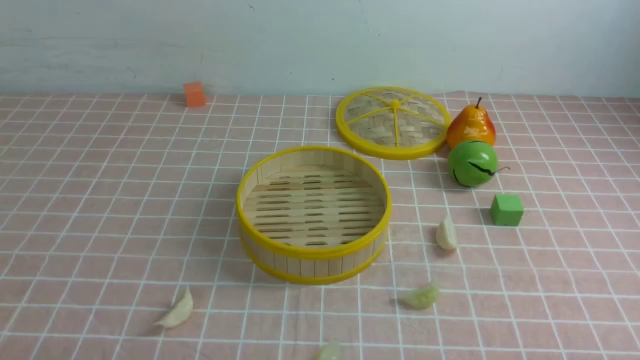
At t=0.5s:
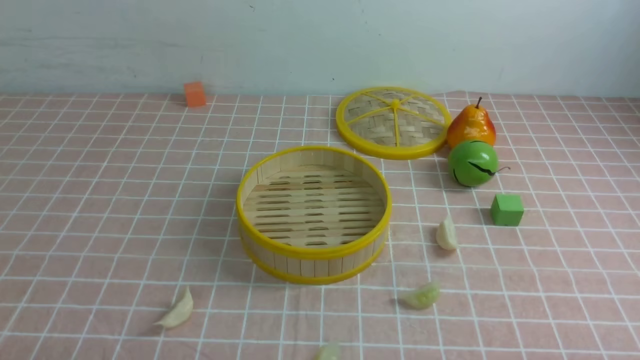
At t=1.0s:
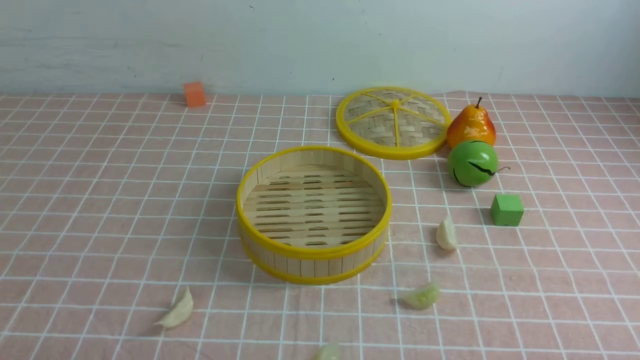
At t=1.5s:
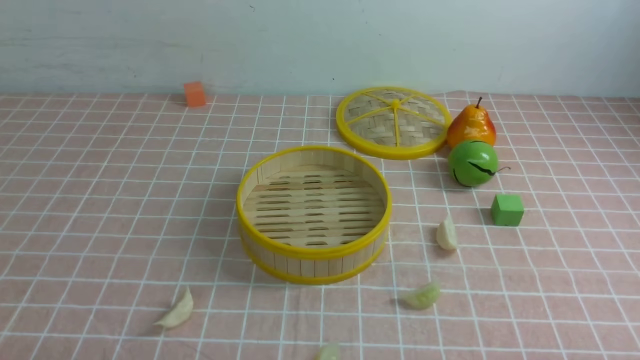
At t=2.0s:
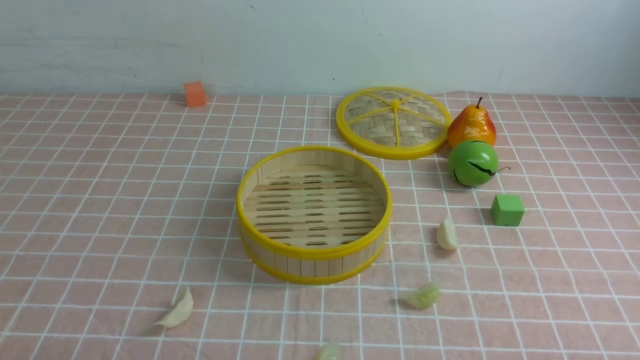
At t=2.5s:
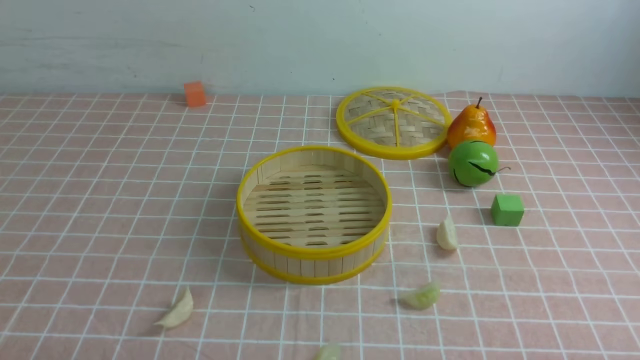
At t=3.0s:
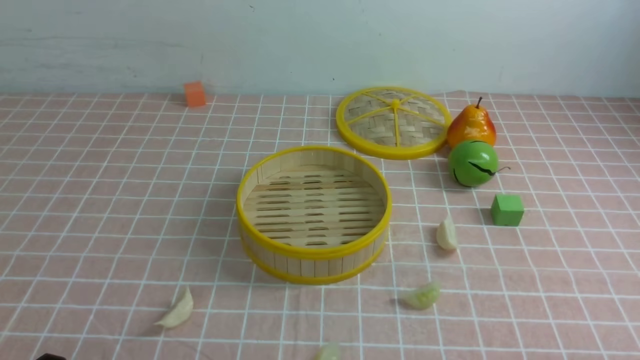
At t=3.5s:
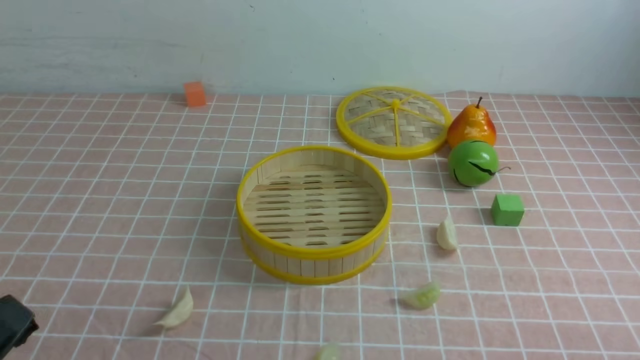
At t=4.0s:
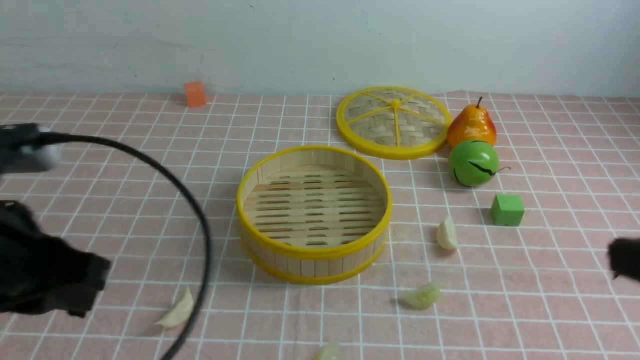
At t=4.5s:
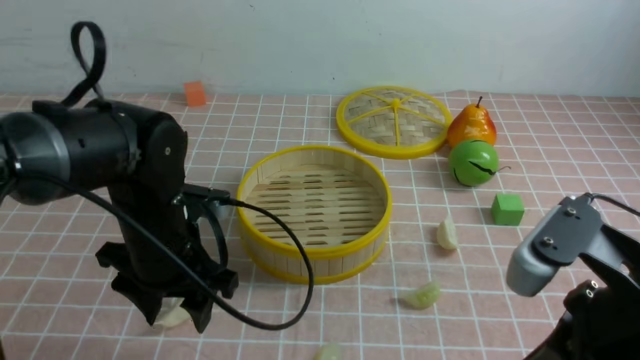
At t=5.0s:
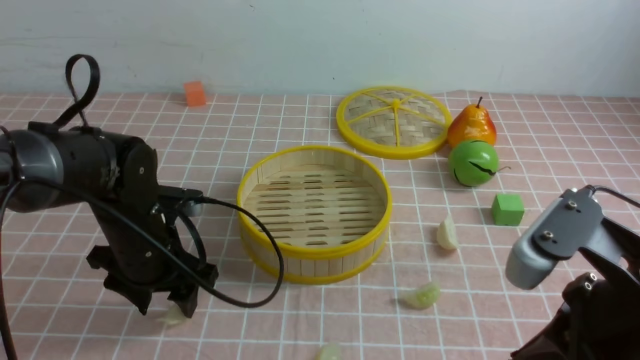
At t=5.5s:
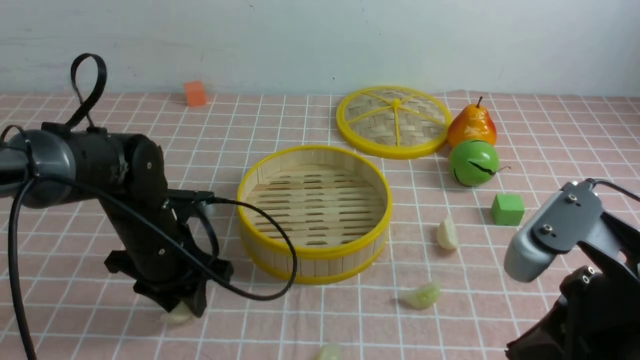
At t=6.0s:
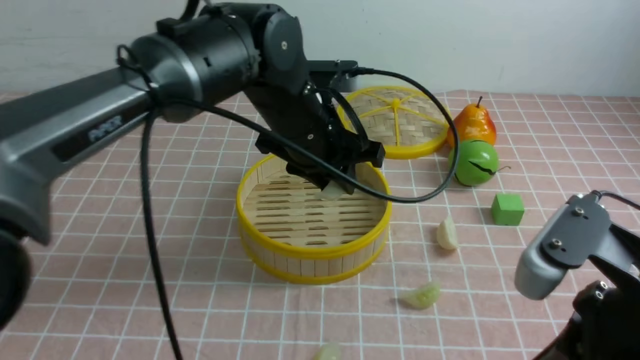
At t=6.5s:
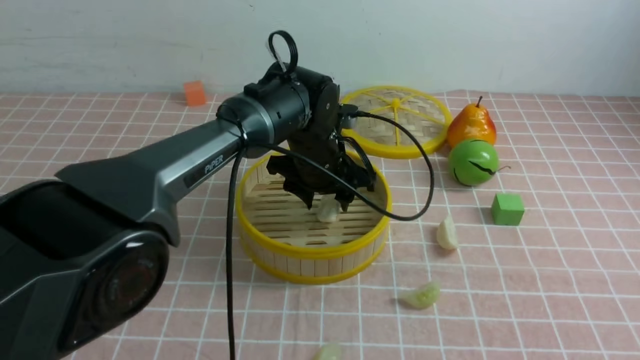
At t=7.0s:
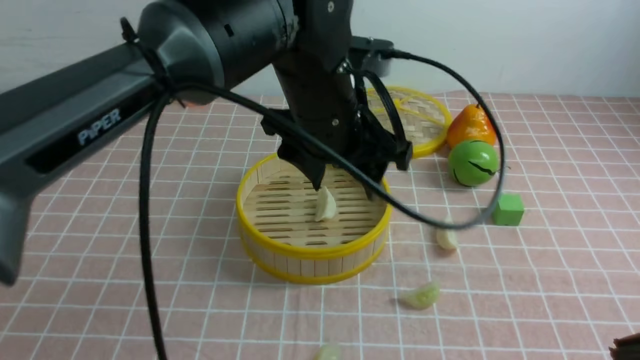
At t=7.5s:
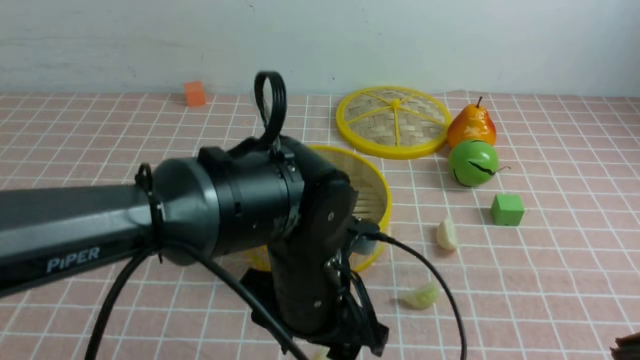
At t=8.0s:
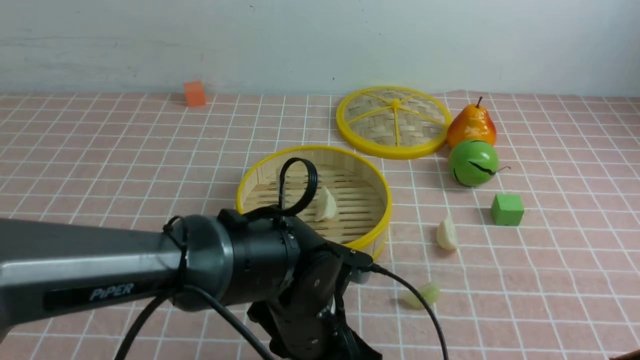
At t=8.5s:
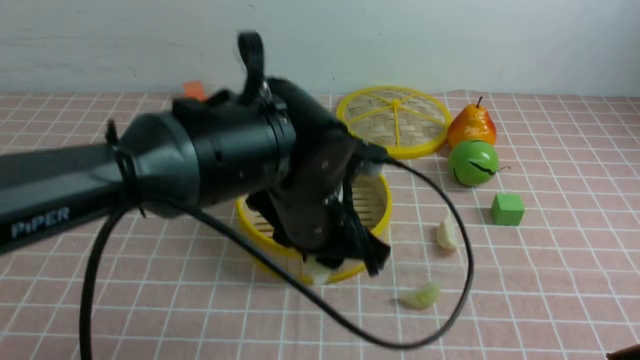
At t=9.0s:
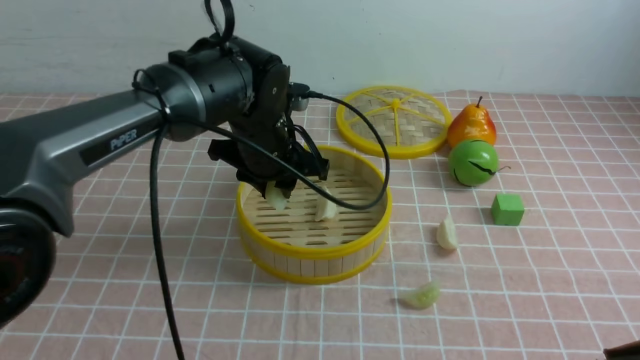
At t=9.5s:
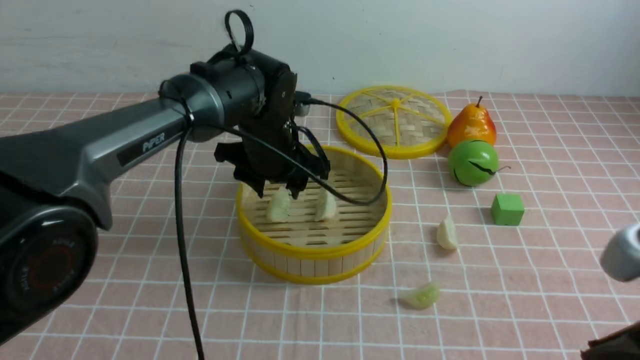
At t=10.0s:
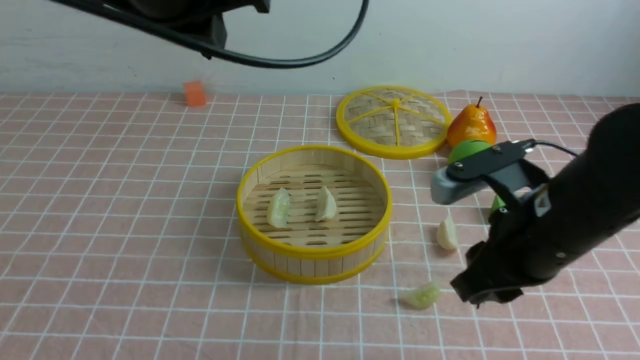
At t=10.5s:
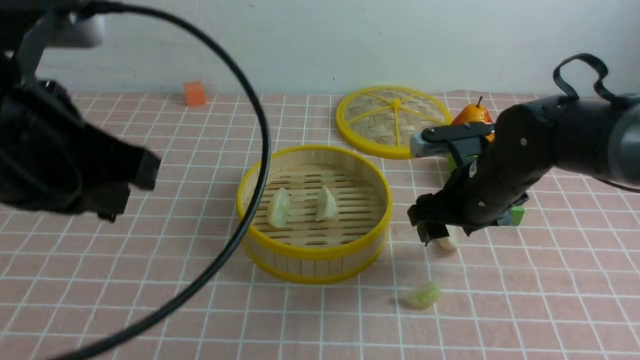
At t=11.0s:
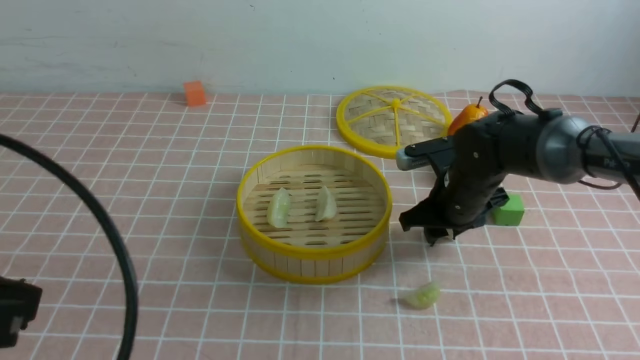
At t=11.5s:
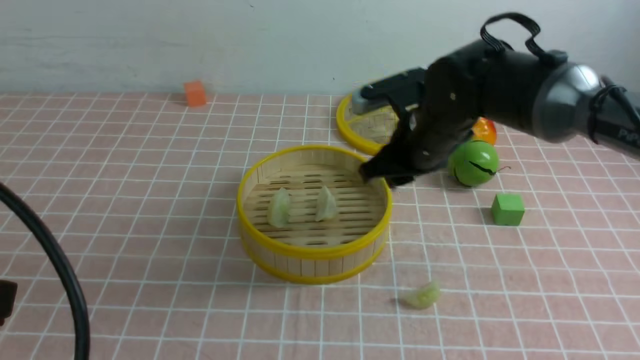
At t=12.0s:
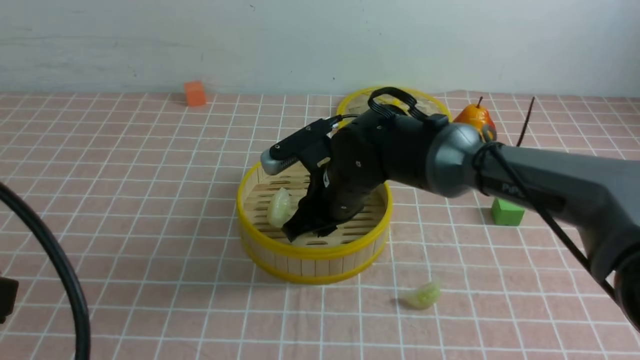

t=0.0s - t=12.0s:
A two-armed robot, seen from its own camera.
Task of the whole recording: put the dumplings into the steamer on the table with the pink tablecloth.
Step, t=0.0s - t=5.5s: use the left arm to grab a dumpling.
Step, t=6.0s - t=6.5s: use the left arm to put the dumpling into the steamer.
Step, t=7.0s - t=8.0s: use the left arm to grab a dumpling.
Step, t=8.5s - t=9.0s: use the left arm to put the dumpling into the steamer.
Step, t=9.5s - t=11.0s: use the right arm to grab a dumpling.
t=2.0s - t=4.0s: The two grippers go roughly 20 cm upward and forward. The right gripper closes, while the left gripper closes.
t=4.0s - t=6.0s: The right gripper moves to the left, approximately 5 cm. The left gripper shifts approximately 30 cm forward and to the right, and opens up.
t=6.0s - t=8.0s: The left gripper is displaced backward and downward by about 15 cm. Meanwhile the right gripper shifts roughly 5 cm backward.
t=8.0s - t=10.0s: The left gripper shifts about 25 cm upward, and closes; the right gripper shifts about 15 cm forward and to the left.
t=10.0s - t=12.0s: The left gripper shifts approximately 30 cm backward and to the left; the right gripper is displaced to the left, forward and downward by some 25 cm, and opens, then closes again.

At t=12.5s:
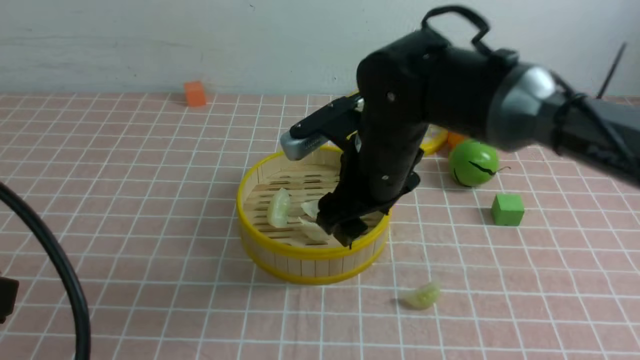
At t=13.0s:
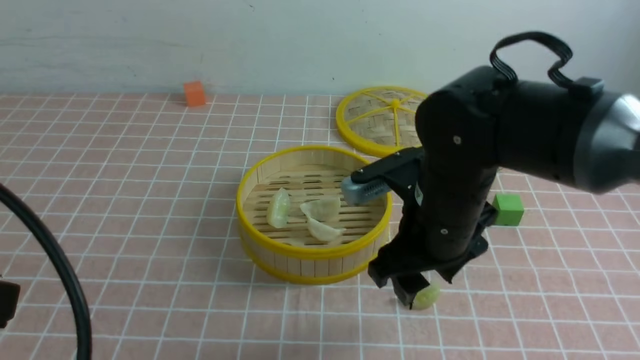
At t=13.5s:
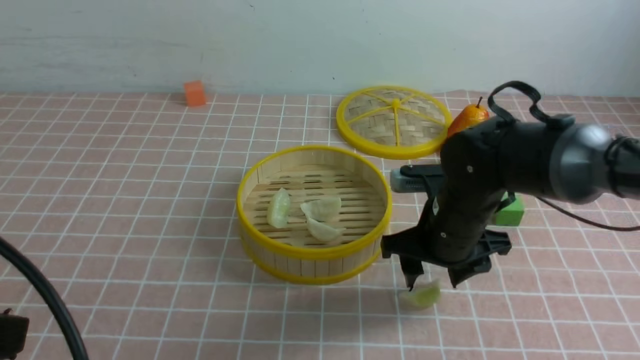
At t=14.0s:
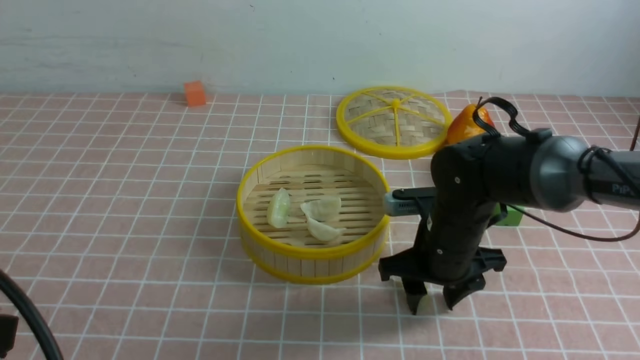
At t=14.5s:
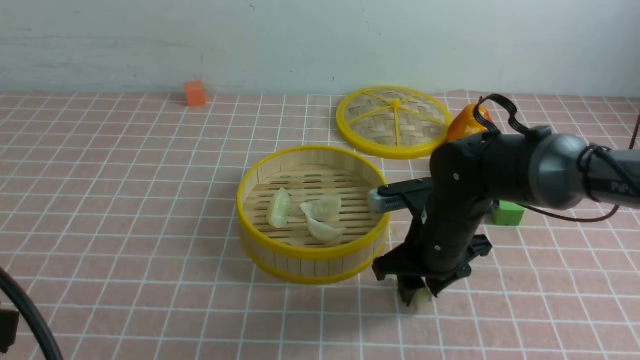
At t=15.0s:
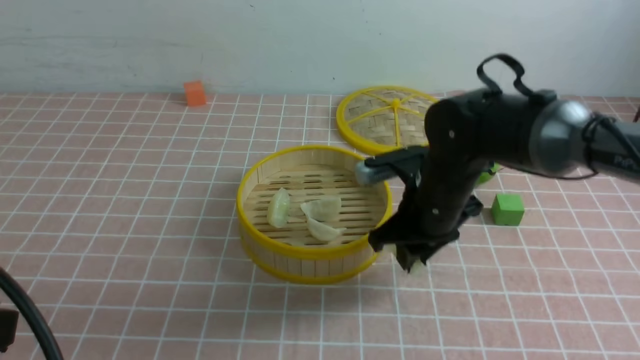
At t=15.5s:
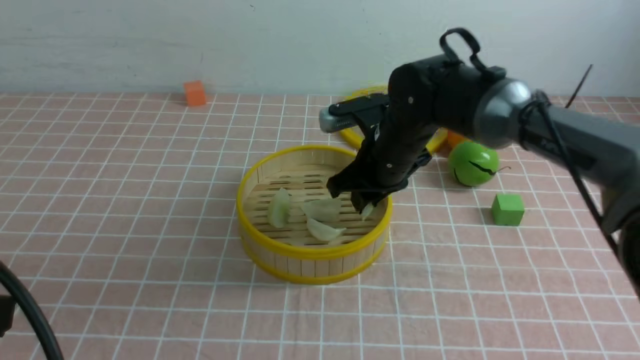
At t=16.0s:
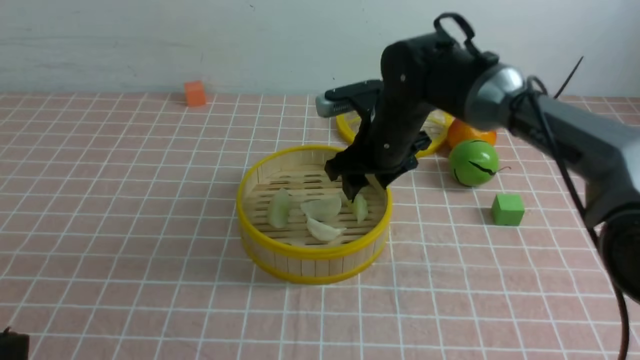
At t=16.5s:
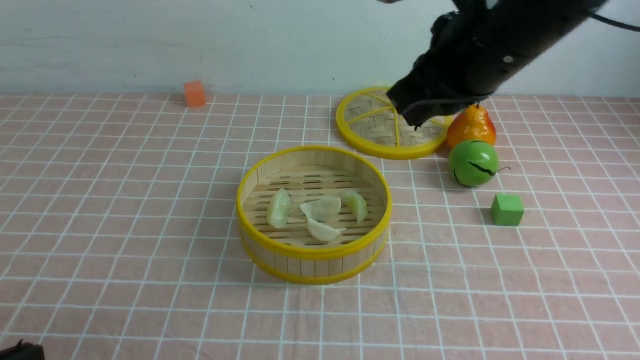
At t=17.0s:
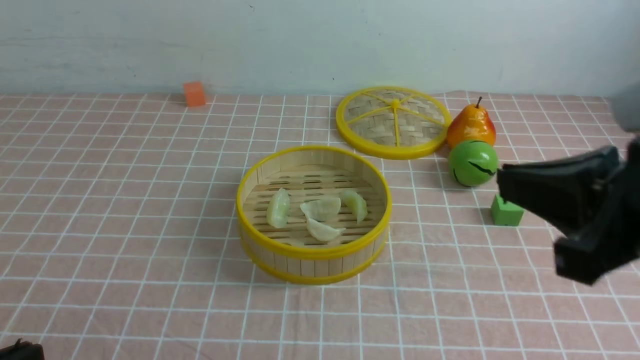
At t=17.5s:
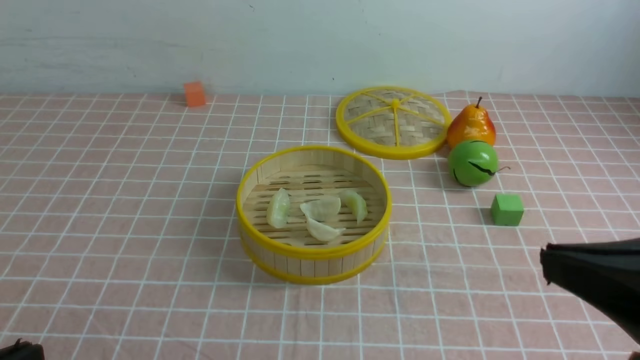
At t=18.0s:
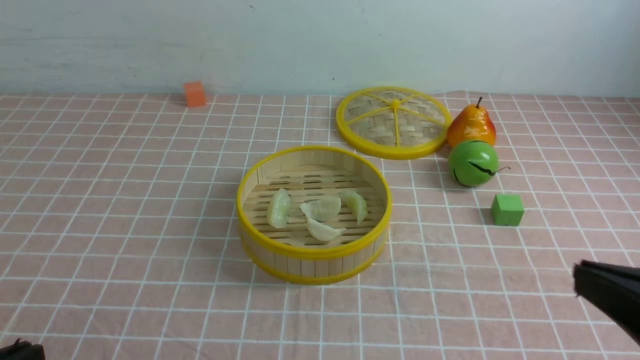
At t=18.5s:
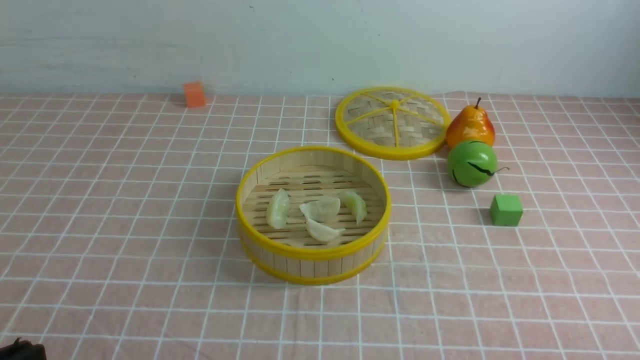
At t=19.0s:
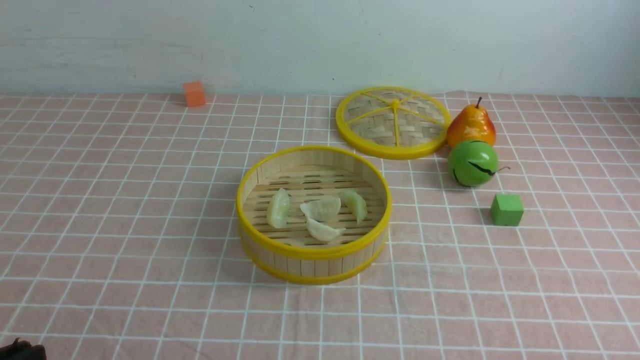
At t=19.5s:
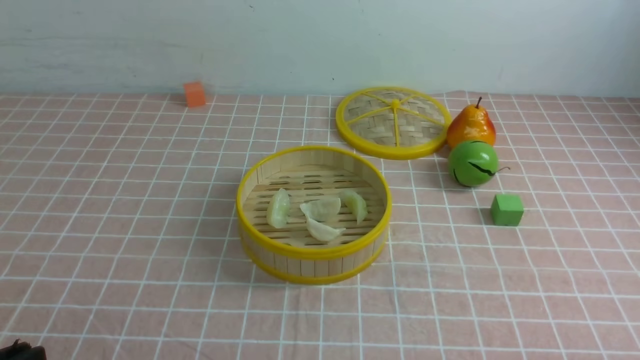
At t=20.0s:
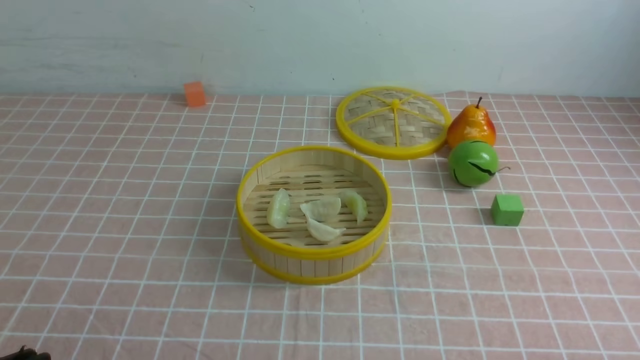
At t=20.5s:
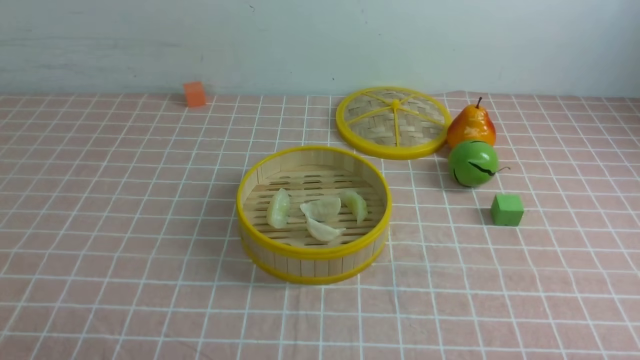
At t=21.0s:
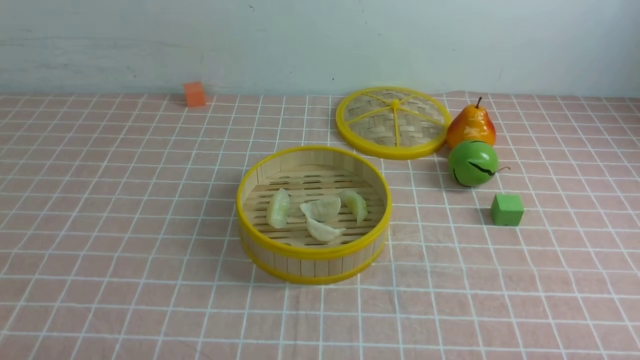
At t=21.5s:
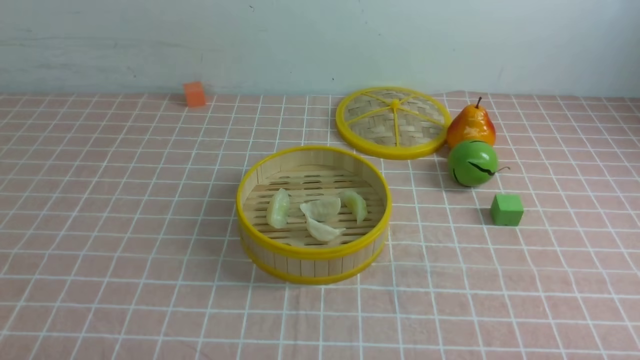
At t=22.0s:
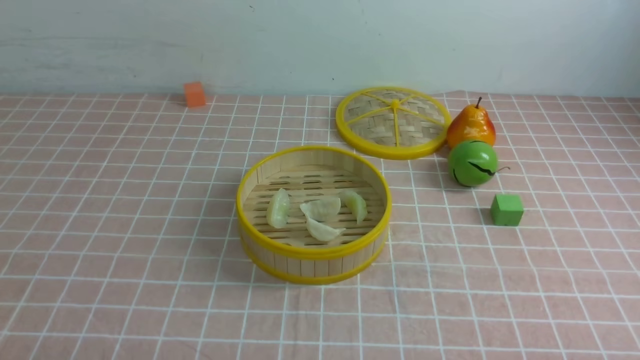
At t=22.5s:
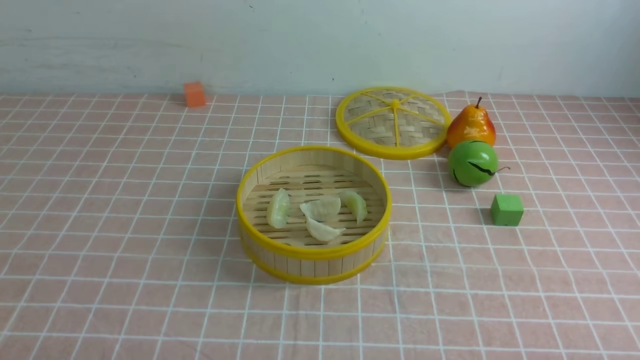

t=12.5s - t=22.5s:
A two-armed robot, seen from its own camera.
Task of the whole recording: put the dumplings into the steamer on the table with the pink tablecloth.
Step, t=12.5s - t=14.5s: use the right arm to grab a dumpling.
Step, t=15.0s - t=16.0s: use the right arm to put the dumpling into the steamer.
t=12.5s - t=14.5s: The right gripper moves downward and to the right, roughly 10 cm.
t=14.5s - t=16.5s: The left gripper moves downward, some 10 cm. The right gripper moves upward, about 20 cm, and closes up.
t=16.5s - t=18.5s: The right gripper heads backward, to the right and downward, covering approximately 40 cm.
